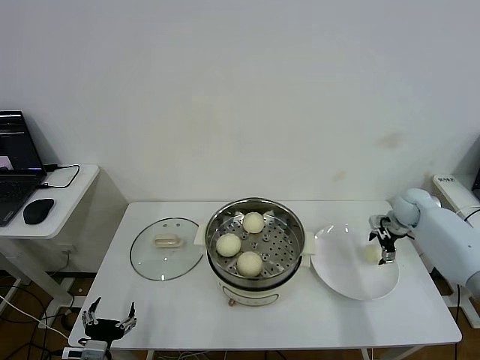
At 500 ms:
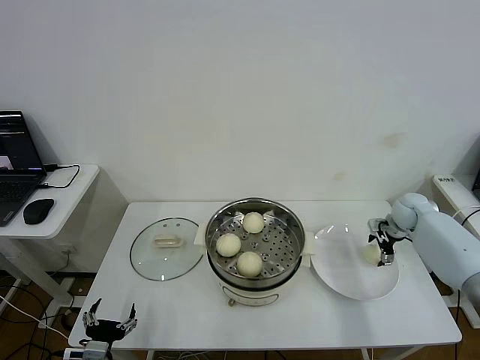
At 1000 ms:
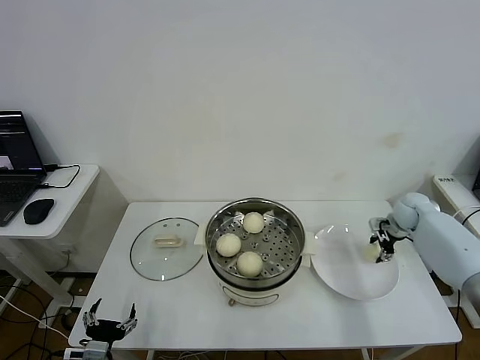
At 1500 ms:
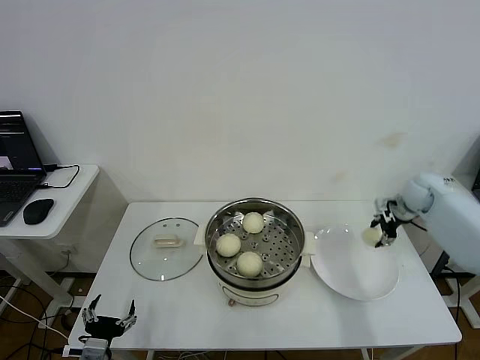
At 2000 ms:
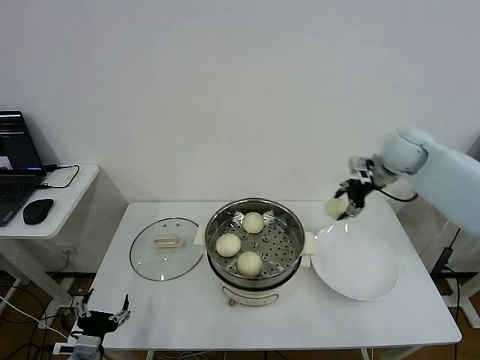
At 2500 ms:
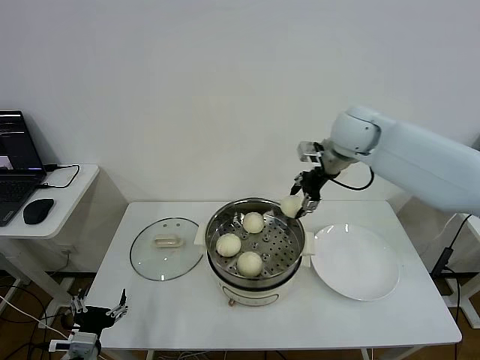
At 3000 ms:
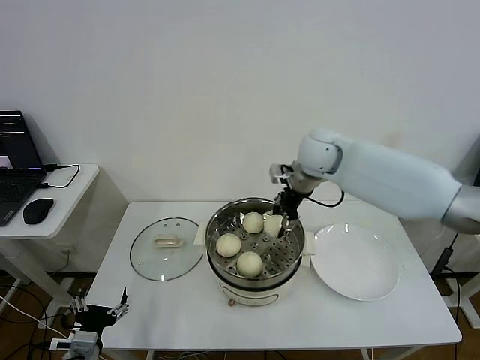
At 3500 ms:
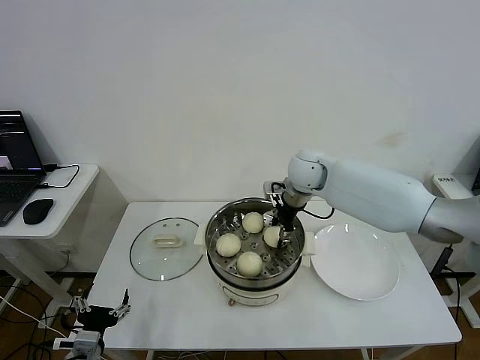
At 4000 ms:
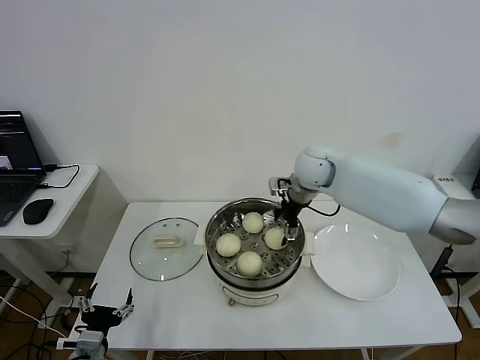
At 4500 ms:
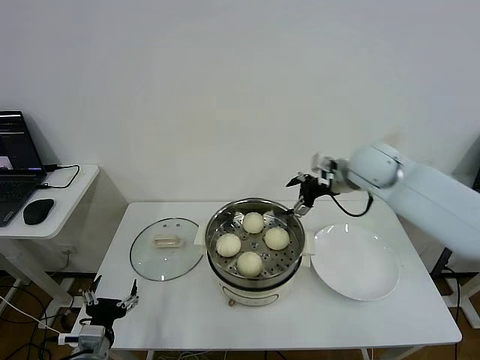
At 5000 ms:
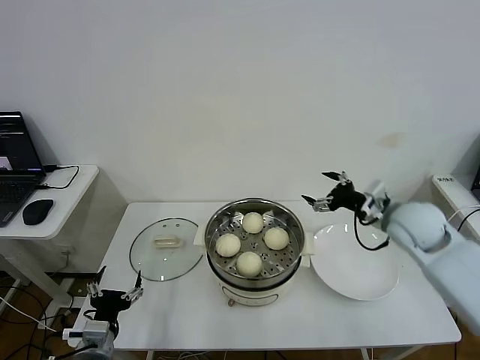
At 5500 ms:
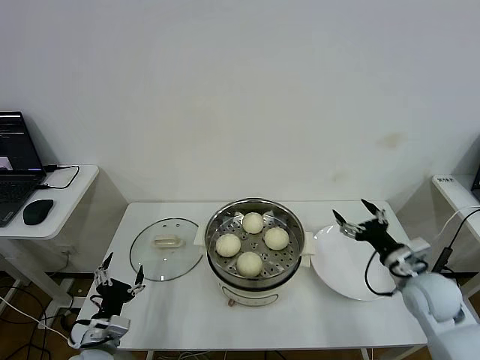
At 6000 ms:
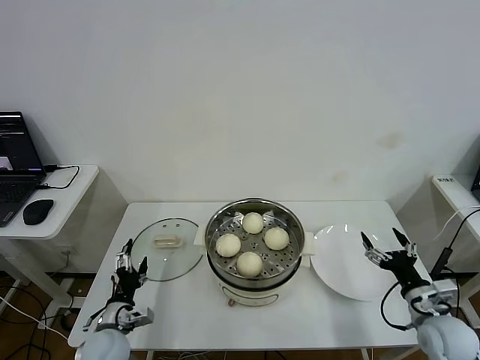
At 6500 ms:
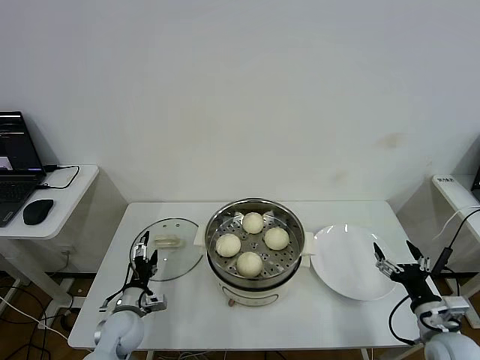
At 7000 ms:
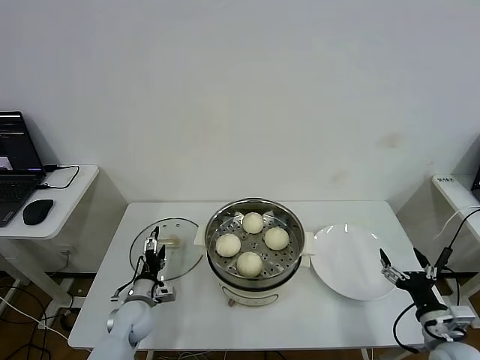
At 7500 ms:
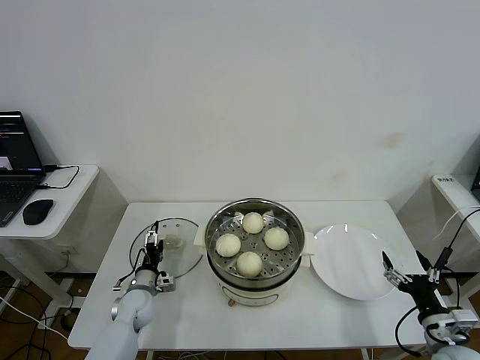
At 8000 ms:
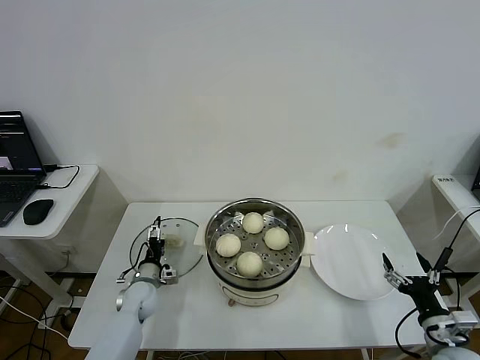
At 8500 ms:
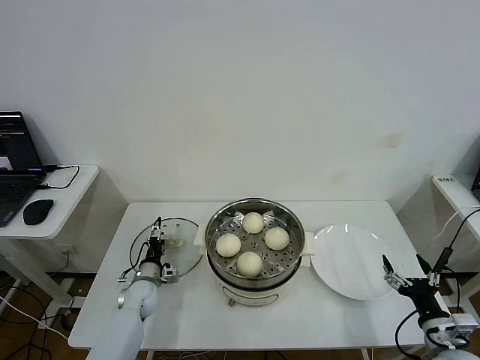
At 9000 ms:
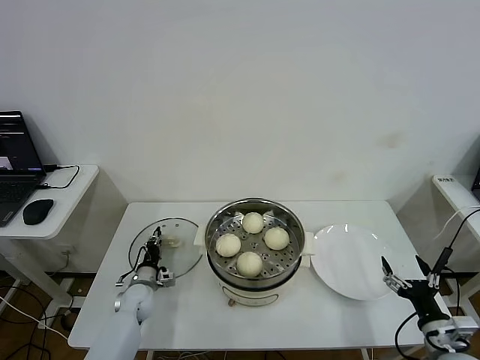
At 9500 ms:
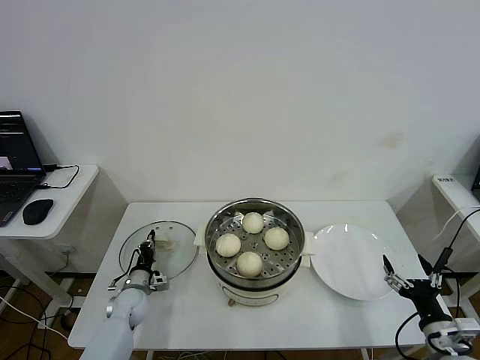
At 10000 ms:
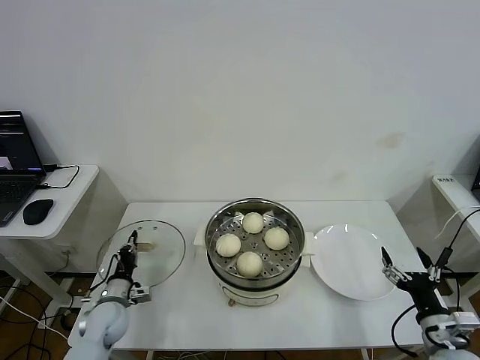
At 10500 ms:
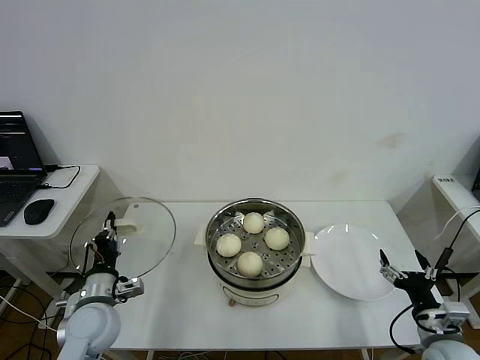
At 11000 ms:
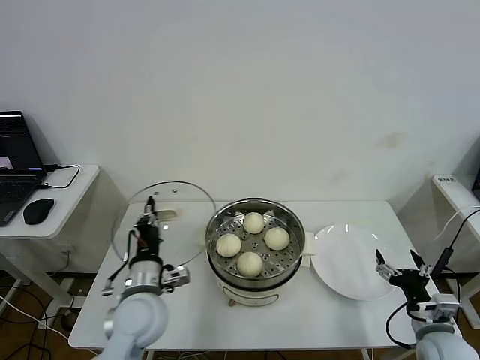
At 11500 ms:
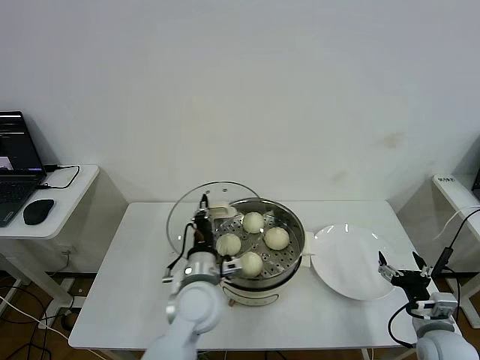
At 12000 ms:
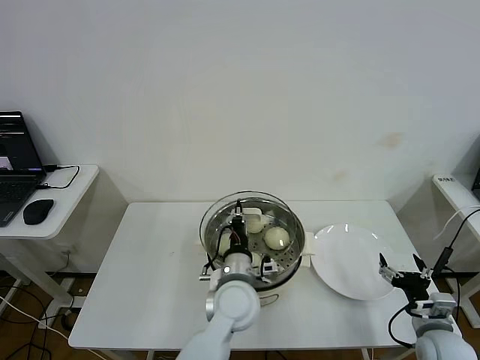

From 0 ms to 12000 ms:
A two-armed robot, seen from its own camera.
Step, from 1500 ms to 3500 ms: Place the baozi on the steamer with right gripper.
Step, from 4000 ms to 9000 ms: Grasp the pot lid with left gripper.
From 0 ms to 2000 ms: The right gripper is displaced upward and to the left by roughly 20 cm, and closes.
From 2000 ms to 4000 ms: The right gripper heads to the left, covering about 20 cm, and opens.
From 4000 ms to 6000 ms: The left gripper is displaced forward by roughly 10 cm. The right gripper shifts some 40 cm backward, to the right and downward.
From 6000 ms to 8000 ms: The left gripper travels forward and downward by roughly 15 cm; the right gripper is displaced backward by about 5 cm.
From 8000 ms to 10000 ms: The left gripper moves backward, some 5 cm, and closes up.
From 10000 ms to 12000 ms: The left gripper moves to the right and upward, about 35 cm.

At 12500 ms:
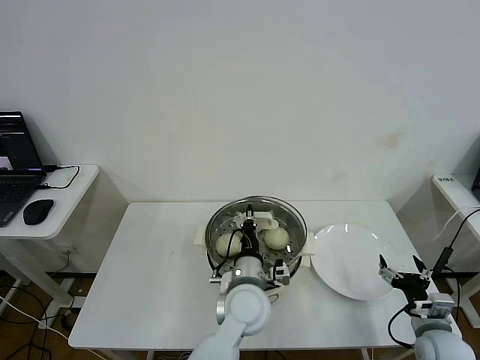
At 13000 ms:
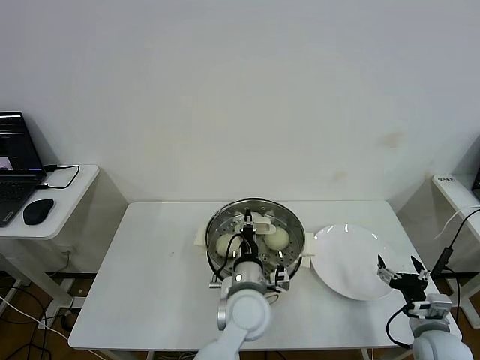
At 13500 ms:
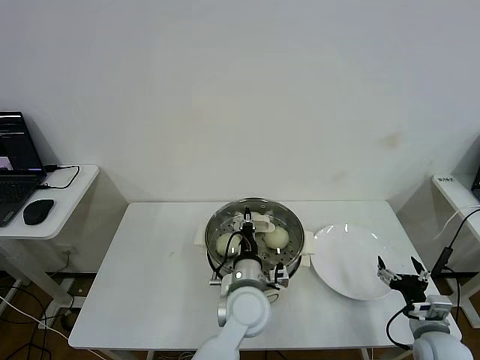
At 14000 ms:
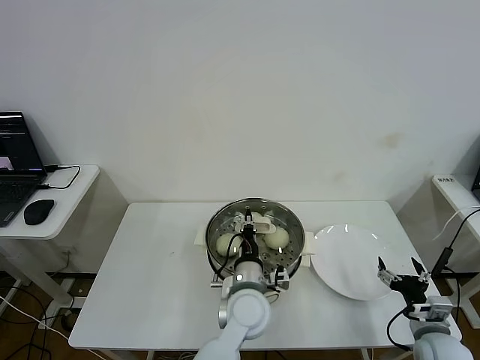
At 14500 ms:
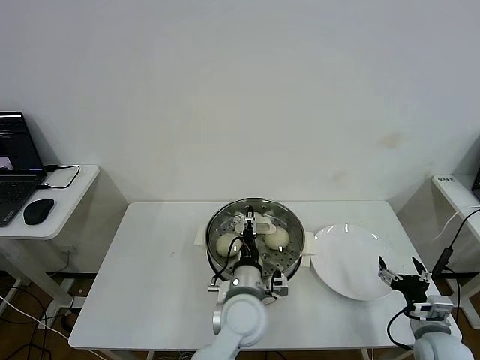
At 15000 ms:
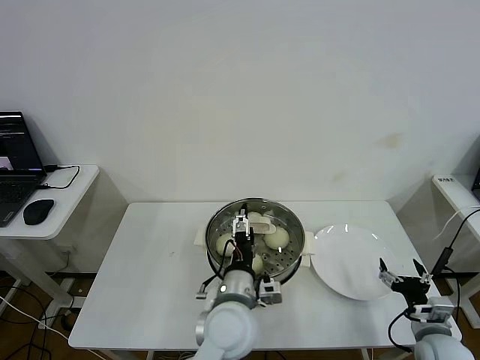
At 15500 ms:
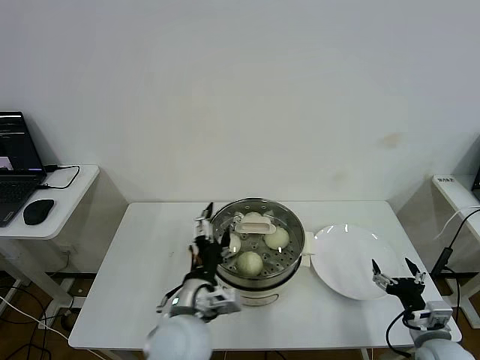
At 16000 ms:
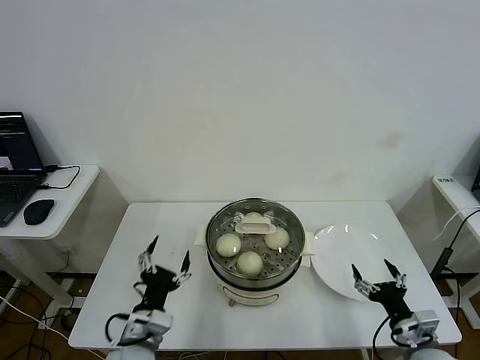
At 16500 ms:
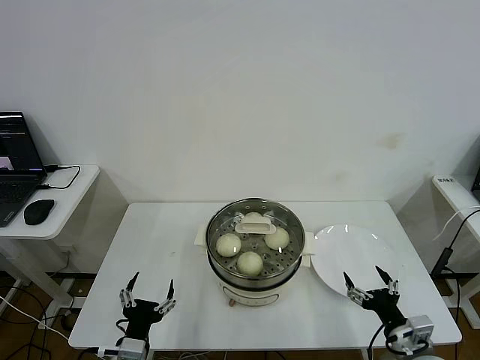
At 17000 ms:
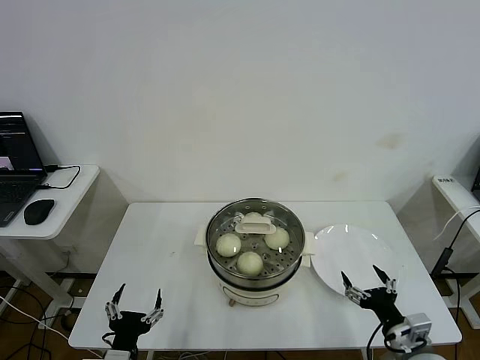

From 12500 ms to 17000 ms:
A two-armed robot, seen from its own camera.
Step, from 12500 ms to 14500 ms: Place the pot lid on the steamer with left gripper.
From 12500 ms to 14500 ms: The left gripper opens up.
From 14500 ms to 17000 ms: The left gripper is displaced to the left and backward by approximately 30 cm, and opens up. The right gripper goes some 5 cm to the left.
